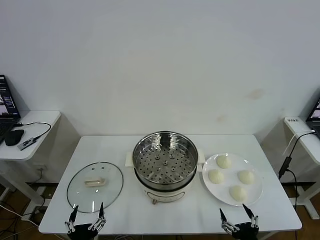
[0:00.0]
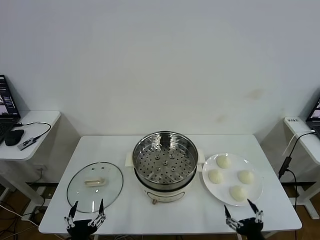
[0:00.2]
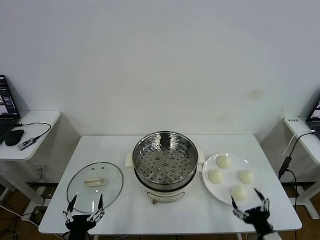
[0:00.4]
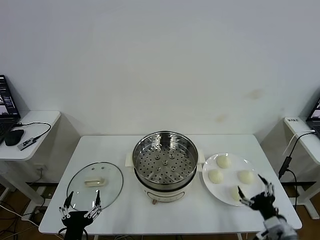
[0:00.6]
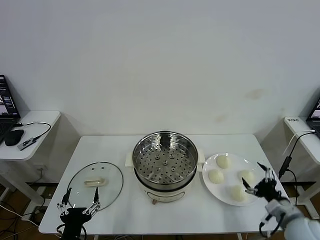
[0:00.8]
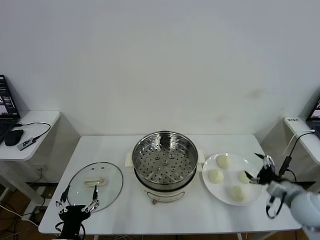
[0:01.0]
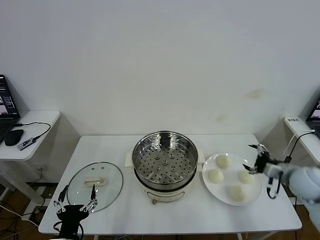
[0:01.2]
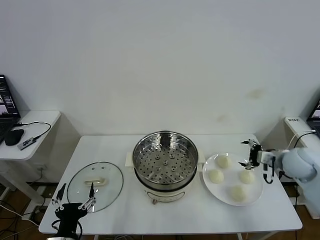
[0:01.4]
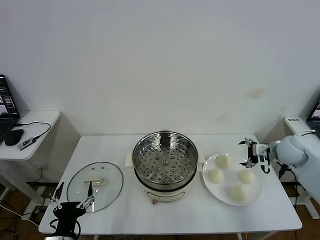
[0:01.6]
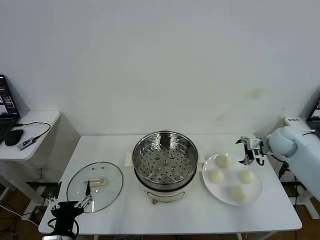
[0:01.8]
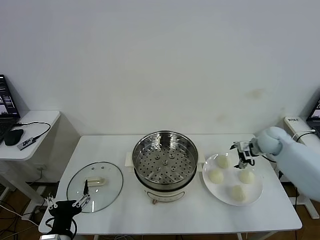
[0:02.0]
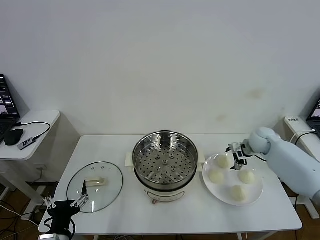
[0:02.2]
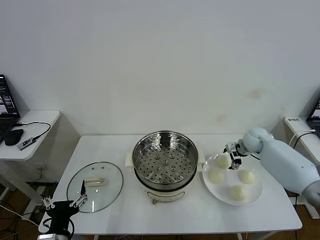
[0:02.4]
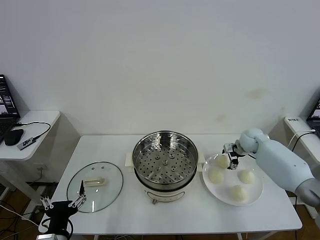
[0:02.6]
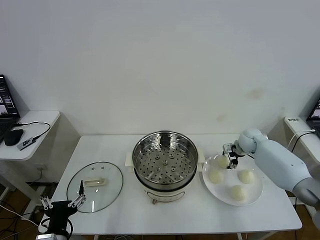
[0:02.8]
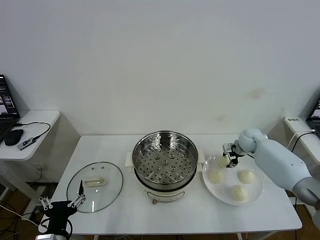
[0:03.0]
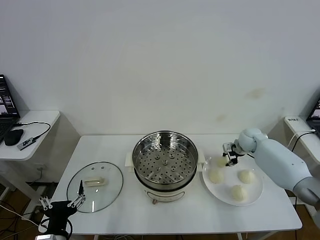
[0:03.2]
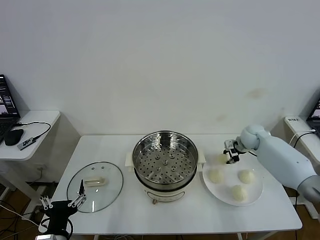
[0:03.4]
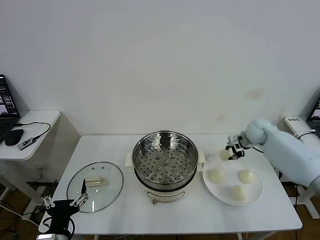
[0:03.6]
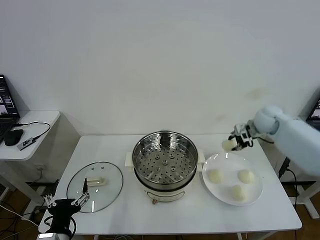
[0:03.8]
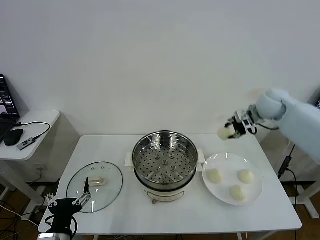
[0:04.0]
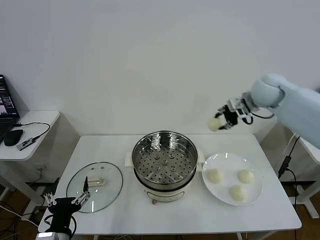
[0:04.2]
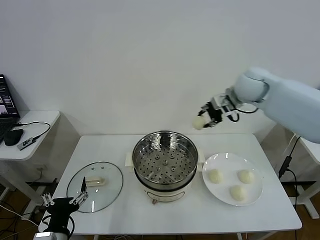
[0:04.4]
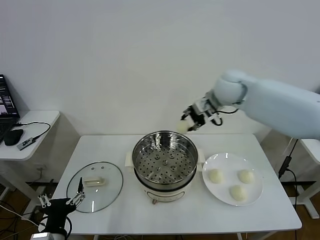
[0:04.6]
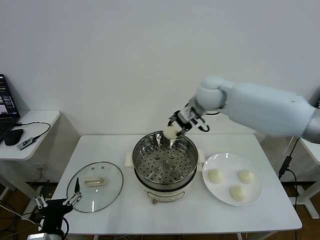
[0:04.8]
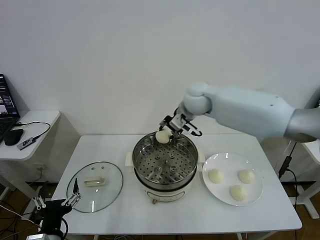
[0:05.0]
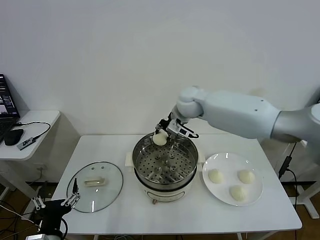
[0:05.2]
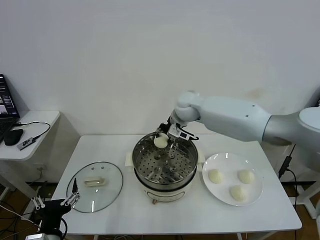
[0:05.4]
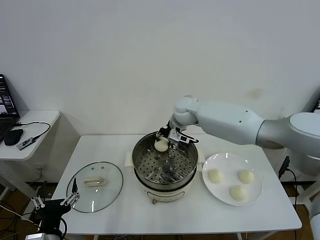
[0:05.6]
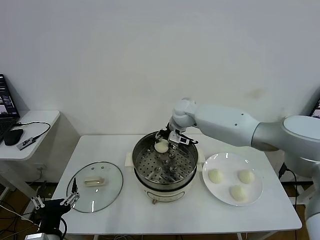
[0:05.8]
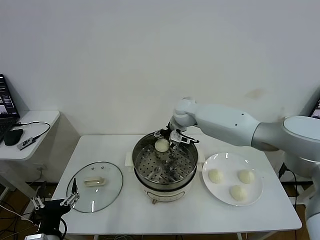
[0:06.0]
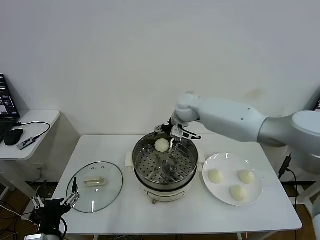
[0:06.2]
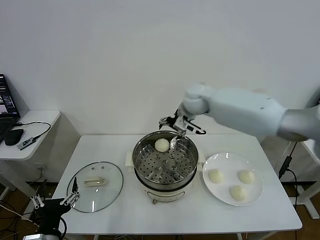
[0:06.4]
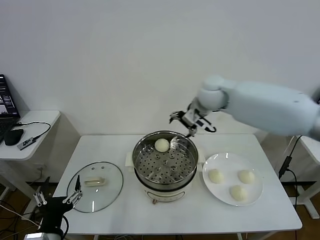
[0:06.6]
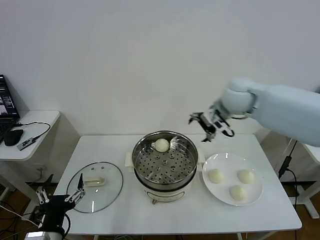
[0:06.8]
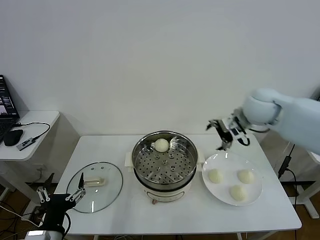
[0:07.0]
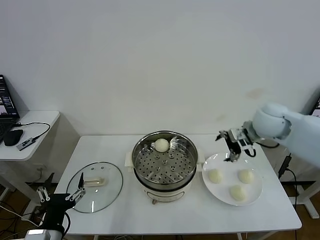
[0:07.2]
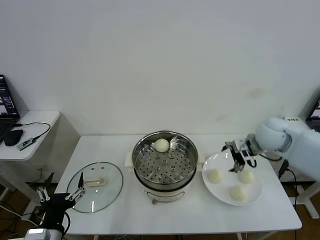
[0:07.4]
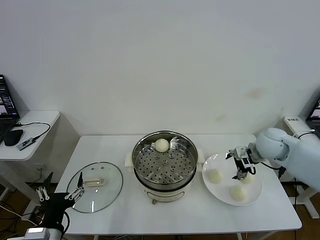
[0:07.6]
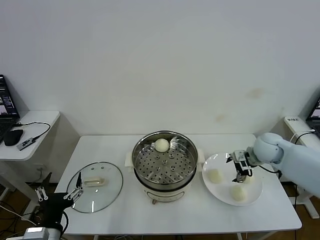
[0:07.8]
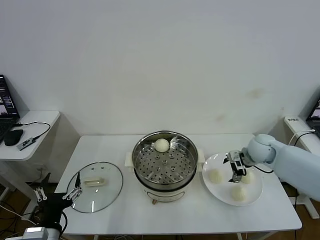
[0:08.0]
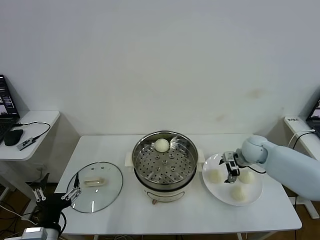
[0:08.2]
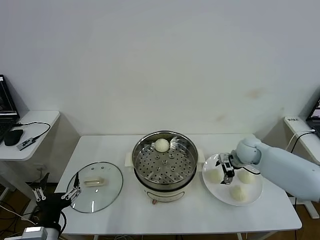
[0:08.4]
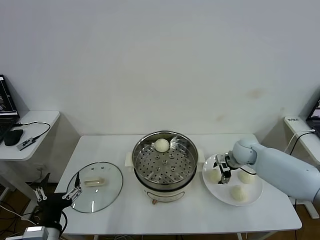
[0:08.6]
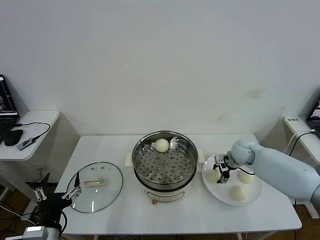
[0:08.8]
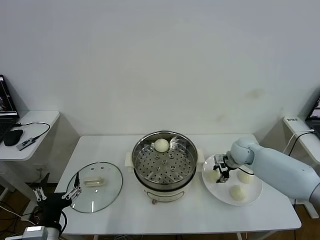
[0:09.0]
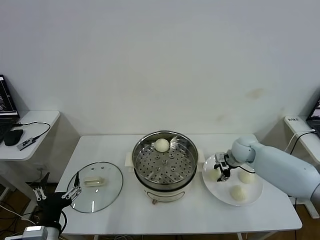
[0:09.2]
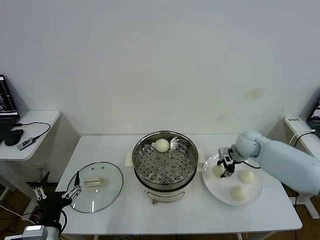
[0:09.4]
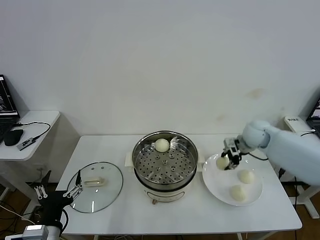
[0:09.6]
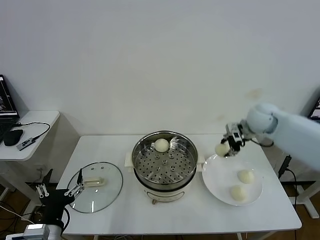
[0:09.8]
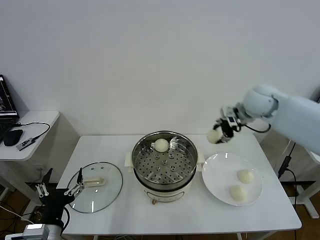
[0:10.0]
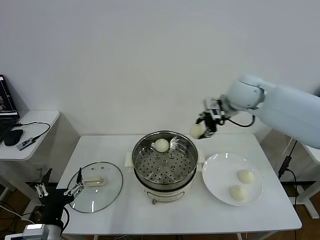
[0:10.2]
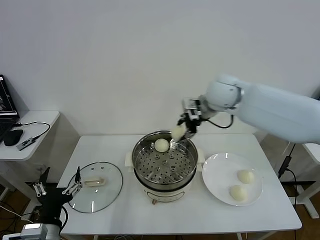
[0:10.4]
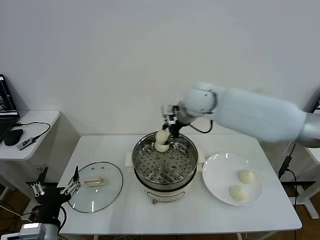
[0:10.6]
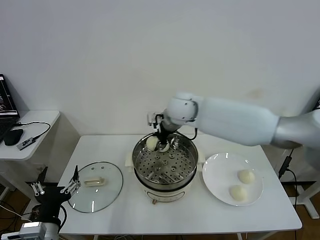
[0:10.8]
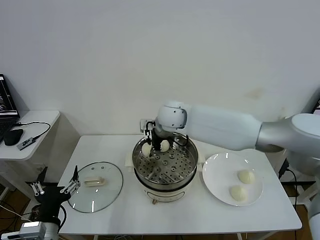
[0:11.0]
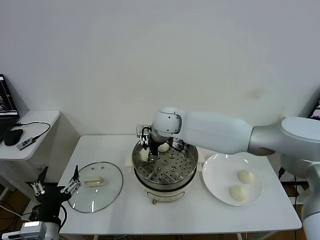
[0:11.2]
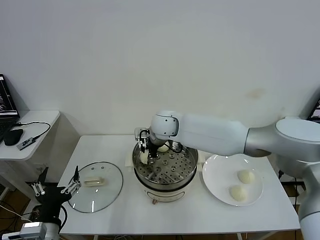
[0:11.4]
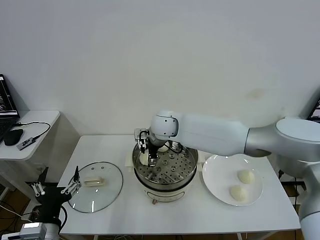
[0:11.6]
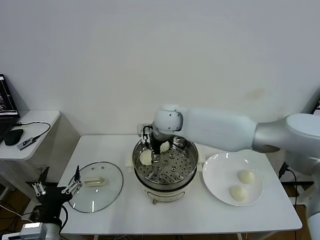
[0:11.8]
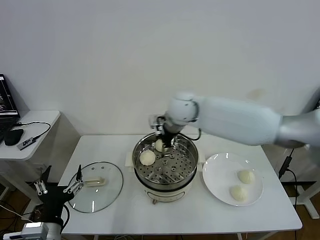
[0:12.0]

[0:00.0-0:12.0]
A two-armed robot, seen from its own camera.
Task of the whole recording: take steamed baozi put them in steamer then cover it.
Step, 0.0 to 3.0 s: Grasp the baozi in the plate with right gripper.
Step, 3.2 to 5.8 s: Place the baozi on the steamer with right gripper.
Step, 6.2 to 8.8 s: Grasp the baozi in the plate with right gripper.
Step, 9.0 to 11.6 s: Place the baozi on the steamer with right gripper.
1.6 to 3.0 s: The right gripper moves forward, downward and to the left, roughly 15 cm, and closes its fingers.
3.0 to 4.4 s: The right gripper travels upward and to the left by about 30 cm.
4.4 to 6.0 s: The right gripper heads to the left and downward, covering approximately 20 cm, and opens its fingers.
6.0 to 7.6 s: The right gripper shifts about 30 cm to the right and backward.
7.6 to 9.0 s: The right gripper heads downward and forward, covering some 10 cm, and closes.
9.0 to 10.4 s: The right gripper moves upward and to the left, about 30 cm.
10.4 to 12.0 s: The right gripper travels to the left and downward by some 10 cm, and opens.

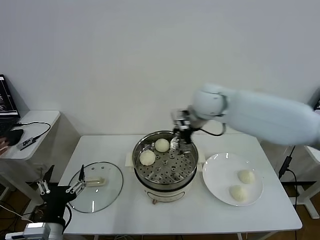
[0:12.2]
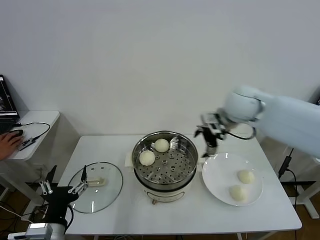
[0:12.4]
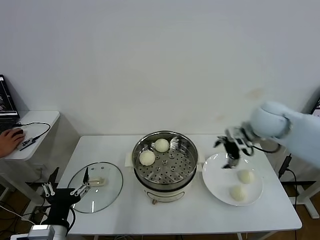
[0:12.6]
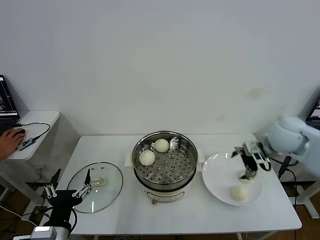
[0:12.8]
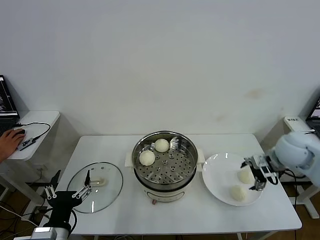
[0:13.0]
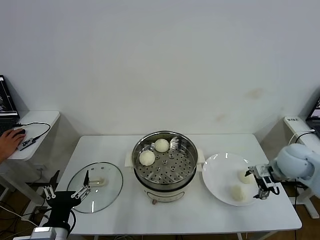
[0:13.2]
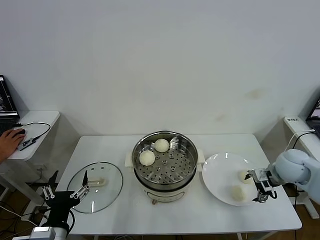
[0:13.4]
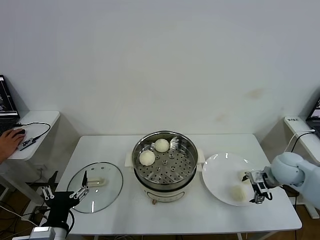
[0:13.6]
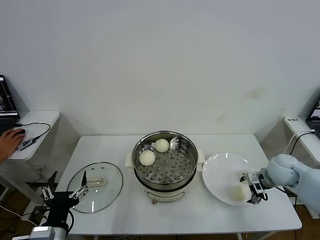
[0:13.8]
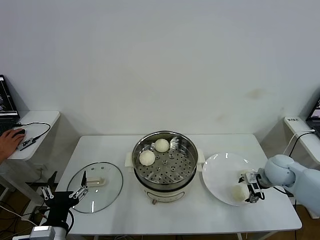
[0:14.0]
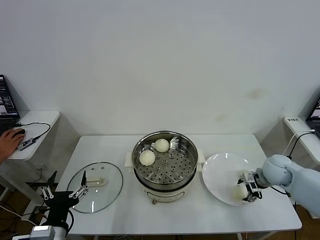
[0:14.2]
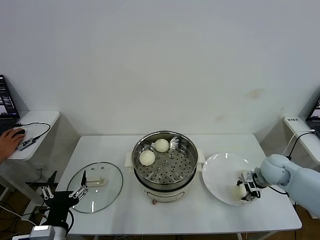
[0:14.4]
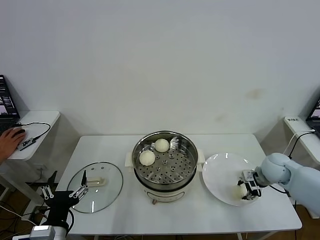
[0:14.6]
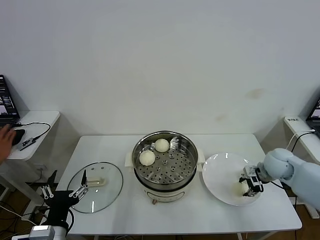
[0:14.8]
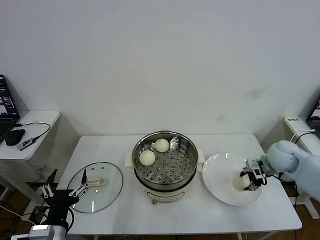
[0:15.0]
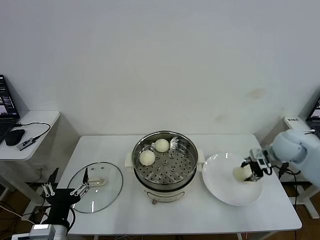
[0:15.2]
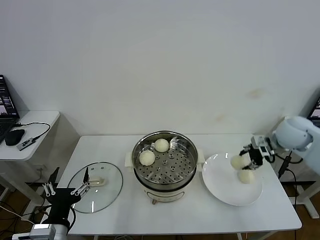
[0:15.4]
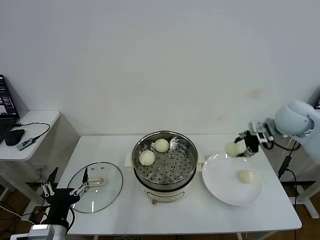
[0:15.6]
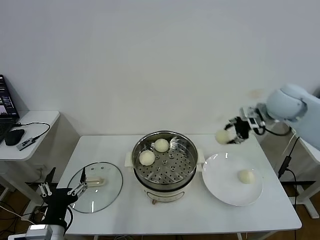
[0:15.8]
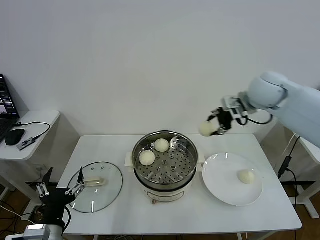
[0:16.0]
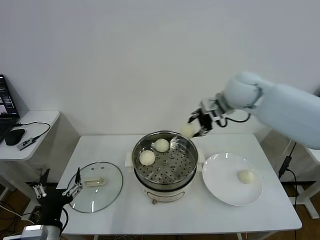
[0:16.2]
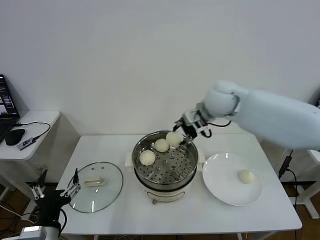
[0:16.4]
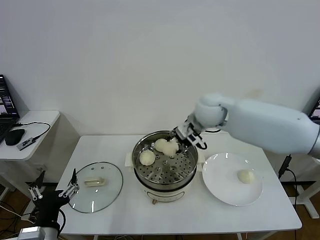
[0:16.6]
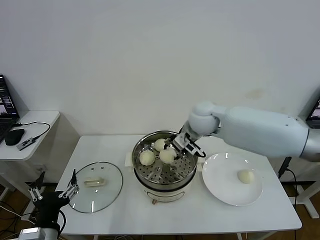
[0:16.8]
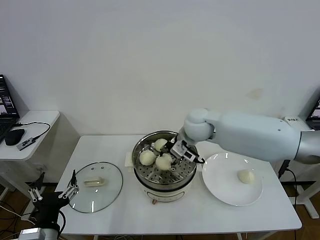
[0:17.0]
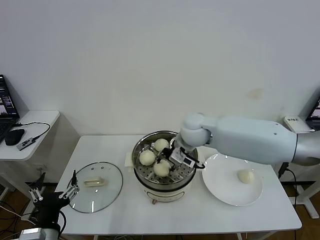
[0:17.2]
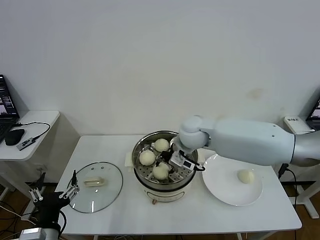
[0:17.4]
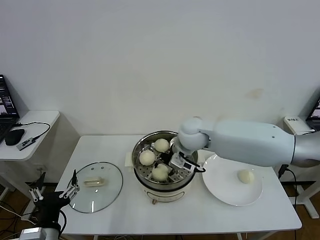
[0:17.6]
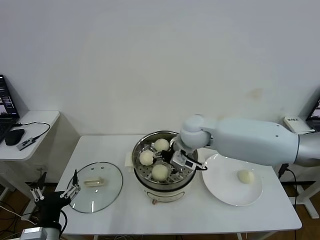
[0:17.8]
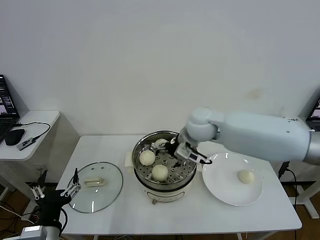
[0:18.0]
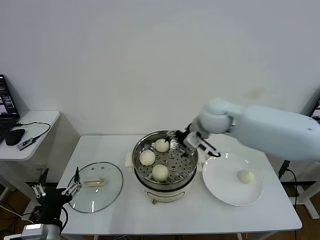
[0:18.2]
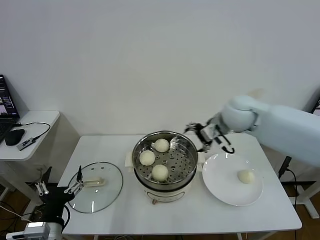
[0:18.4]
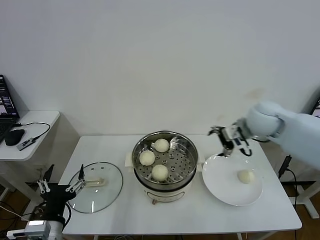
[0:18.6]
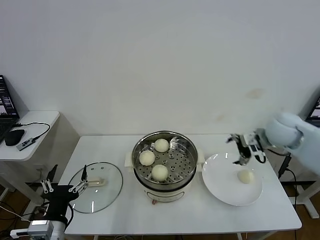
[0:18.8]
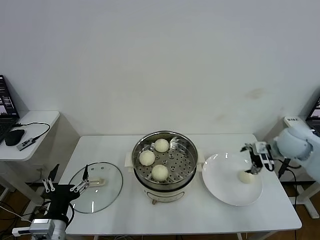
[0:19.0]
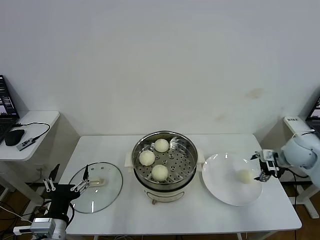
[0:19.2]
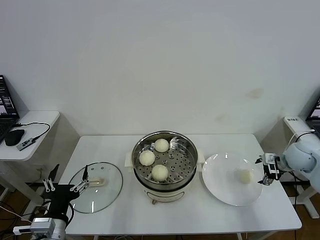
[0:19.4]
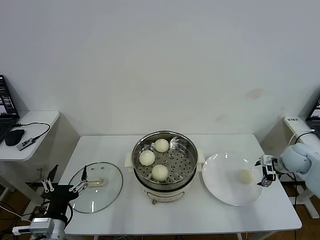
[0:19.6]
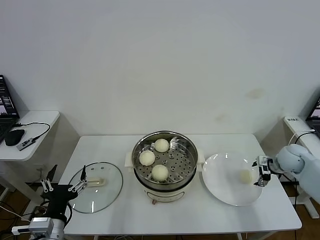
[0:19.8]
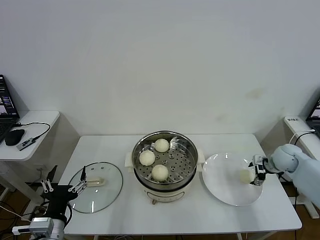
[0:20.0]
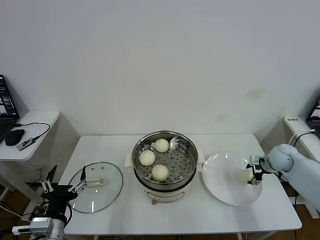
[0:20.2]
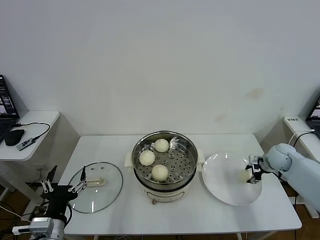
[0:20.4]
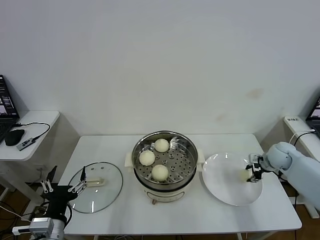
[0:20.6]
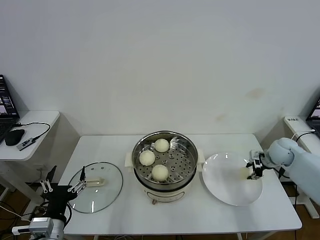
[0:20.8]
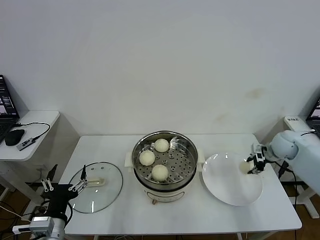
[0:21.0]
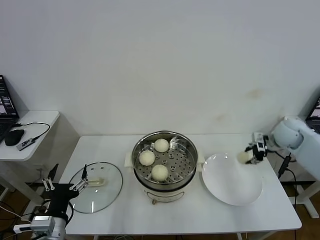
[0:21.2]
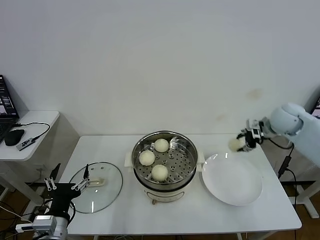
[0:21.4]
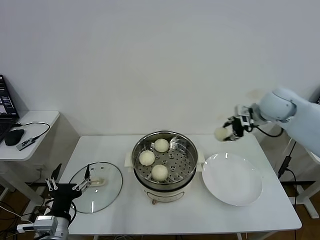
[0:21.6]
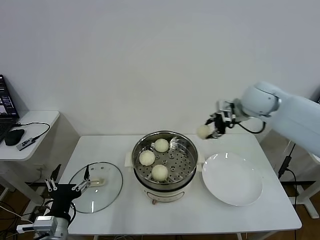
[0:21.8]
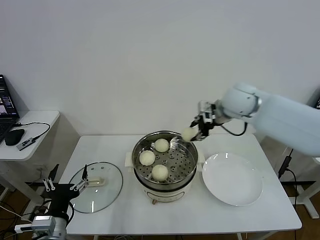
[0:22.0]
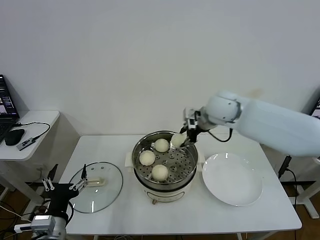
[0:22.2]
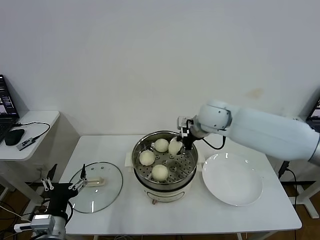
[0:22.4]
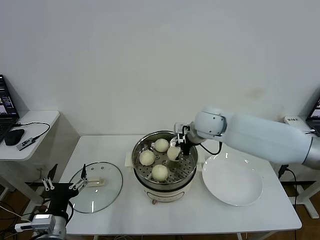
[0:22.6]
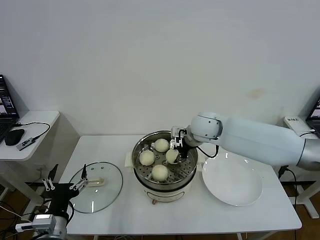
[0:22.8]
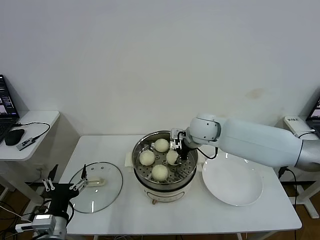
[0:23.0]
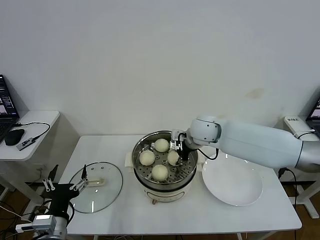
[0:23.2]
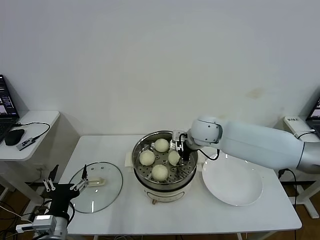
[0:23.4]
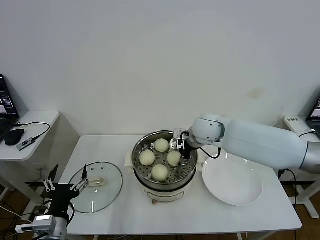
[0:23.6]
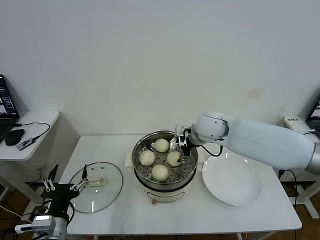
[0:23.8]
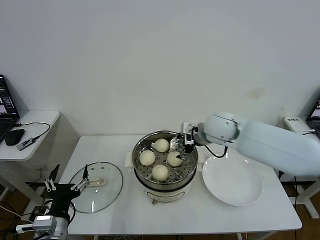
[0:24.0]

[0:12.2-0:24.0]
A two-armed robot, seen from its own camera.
Task of the whole recording: take steamed baozi put them in steamer then cover it.
Step, 12.2 to 14.6 s: Grasp the baozi in the plate with right gripper.
Step, 14.8 to 17.6 s: Place the baozi on the steamer with right gripper.
Step, 18.0 to 20.6 s: Grasp the baozi in the plate with right gripper.
Step, 20.8 to 23.6 s: Place the baozi on the steamer with right gripper.
12.2 to 13.6 s: The right gripper shifts some 35 cm to the right, downward and backward.
13.6 to 15.2 s: The right gripper moves upward, approximately 5 cm, and closes.
15.2 to 16.6 s: The right gripper goes approximately 25 cm to the left.
16.6 to 18.2 s: The right gripper opens its fingers.
18.2 to 19.6 s: The right gripper travels to the right and downward by about 35 cm.
19.6 to 21.0 s: The right gripper changes place by about 5 cm, and closes up.
21.0 to 22.6 s: The right gripper heads to the left, covering approximately 30 cm.
22.6 to 24.0 s: The right gripper opens.
